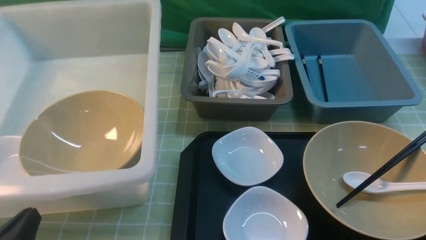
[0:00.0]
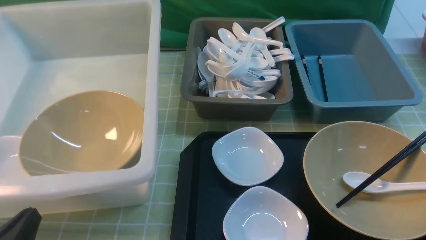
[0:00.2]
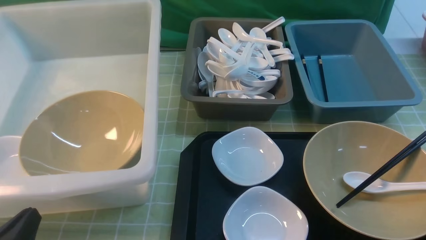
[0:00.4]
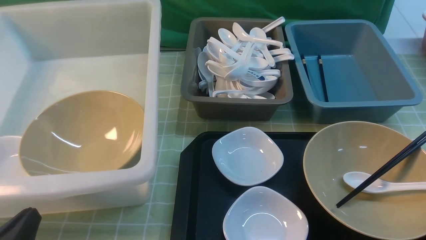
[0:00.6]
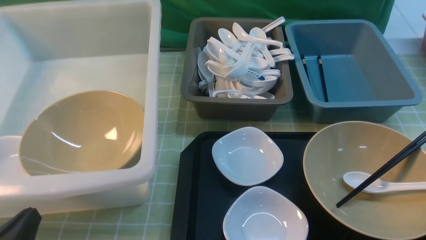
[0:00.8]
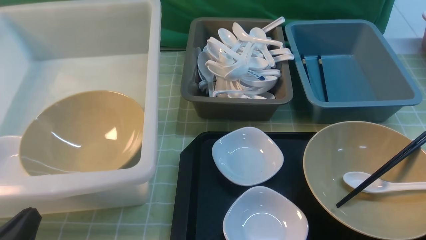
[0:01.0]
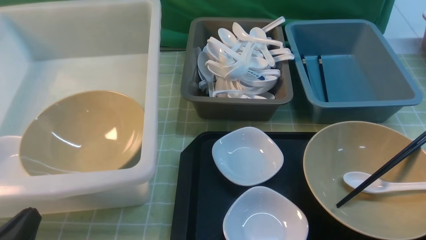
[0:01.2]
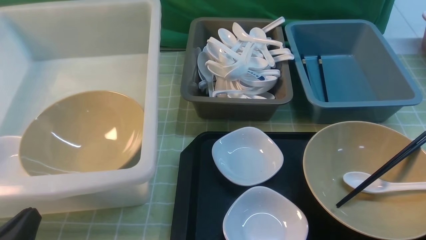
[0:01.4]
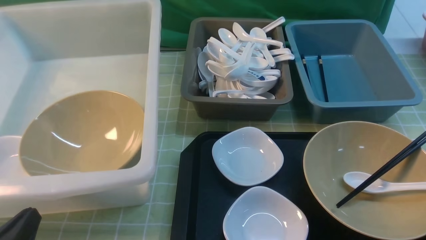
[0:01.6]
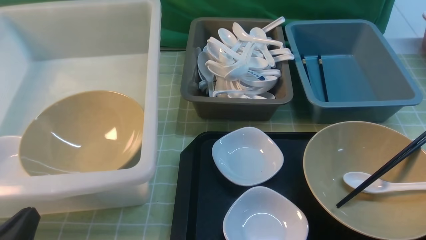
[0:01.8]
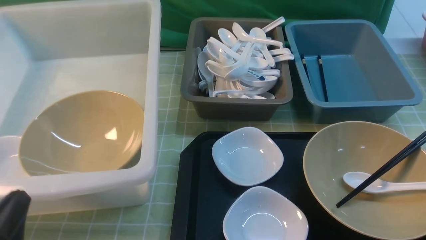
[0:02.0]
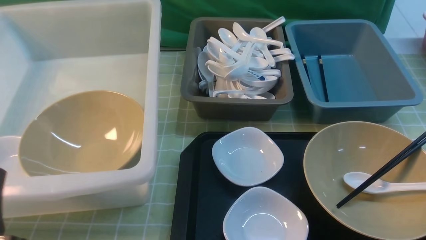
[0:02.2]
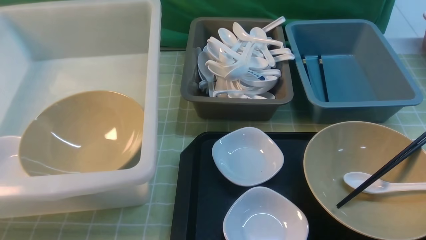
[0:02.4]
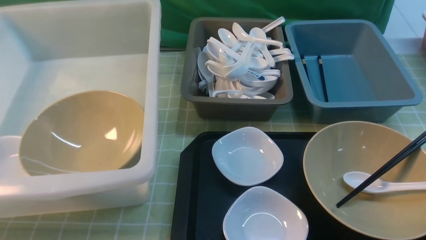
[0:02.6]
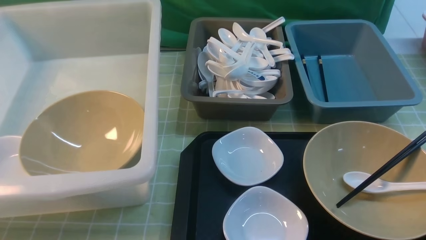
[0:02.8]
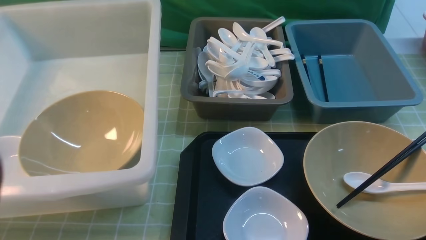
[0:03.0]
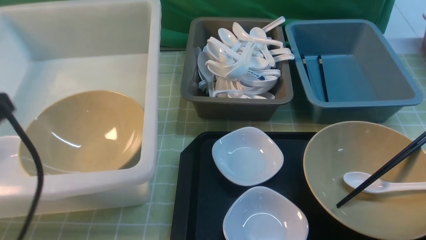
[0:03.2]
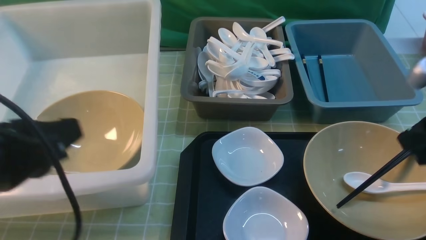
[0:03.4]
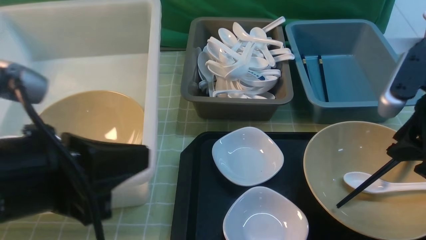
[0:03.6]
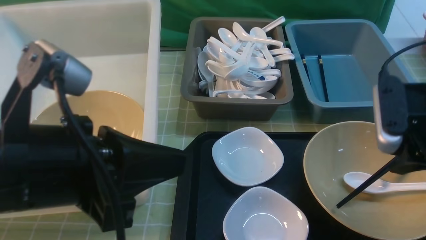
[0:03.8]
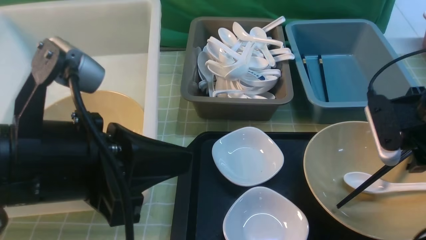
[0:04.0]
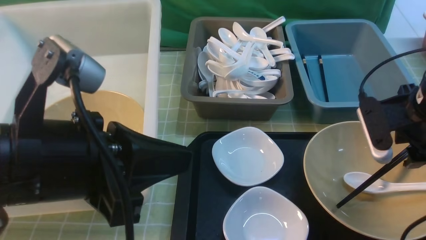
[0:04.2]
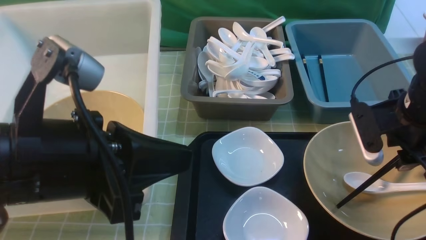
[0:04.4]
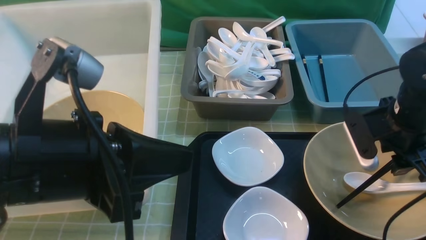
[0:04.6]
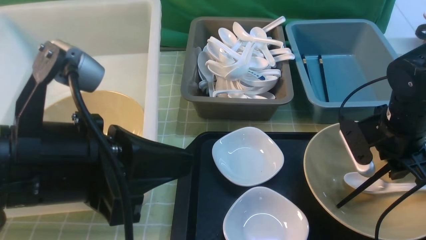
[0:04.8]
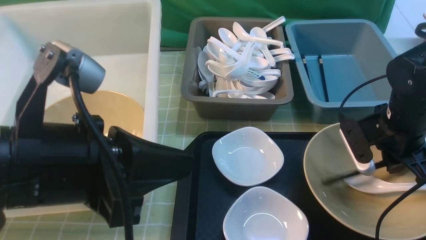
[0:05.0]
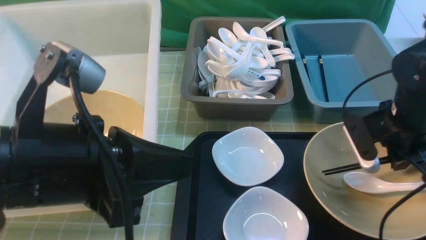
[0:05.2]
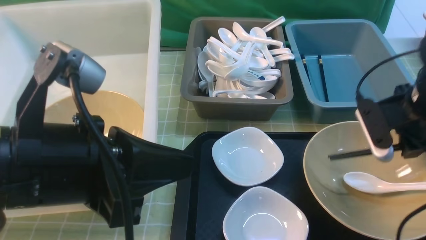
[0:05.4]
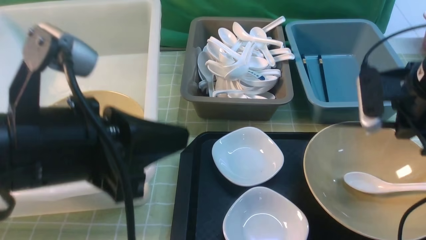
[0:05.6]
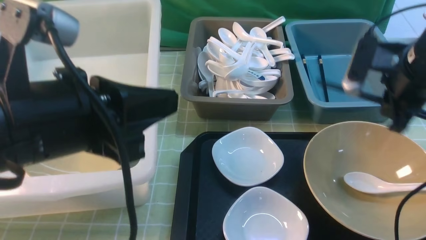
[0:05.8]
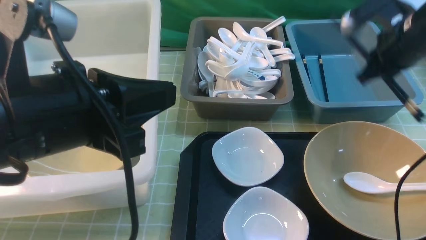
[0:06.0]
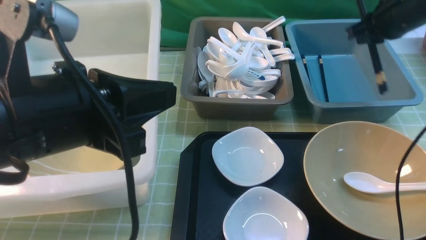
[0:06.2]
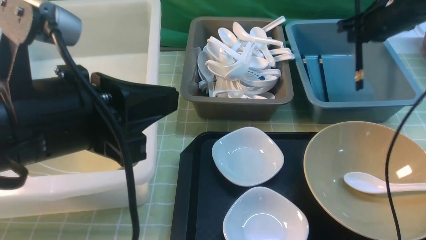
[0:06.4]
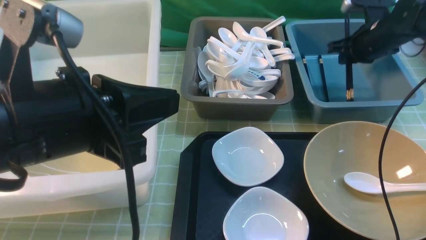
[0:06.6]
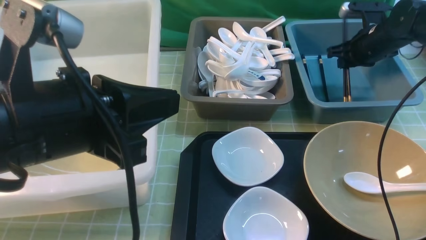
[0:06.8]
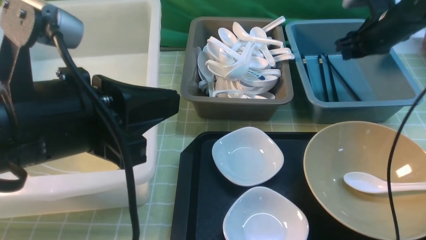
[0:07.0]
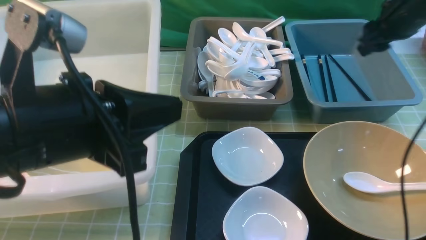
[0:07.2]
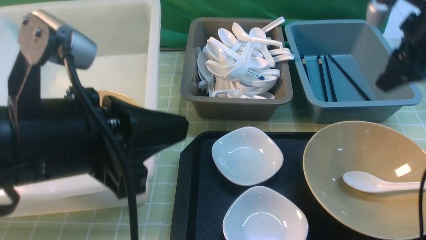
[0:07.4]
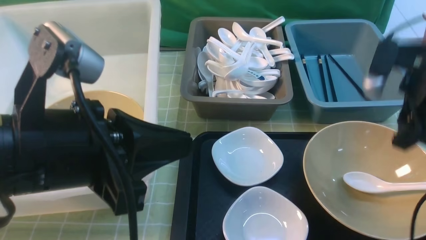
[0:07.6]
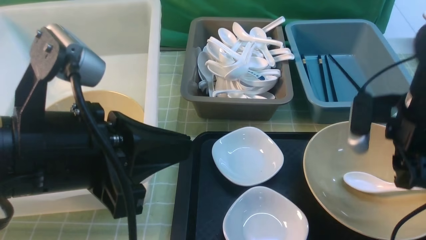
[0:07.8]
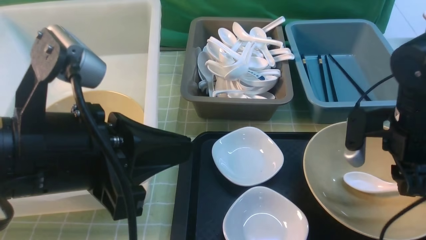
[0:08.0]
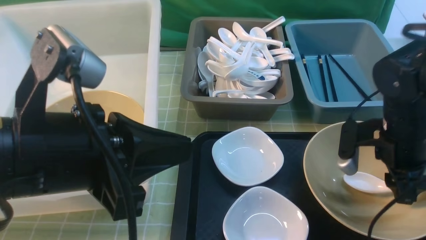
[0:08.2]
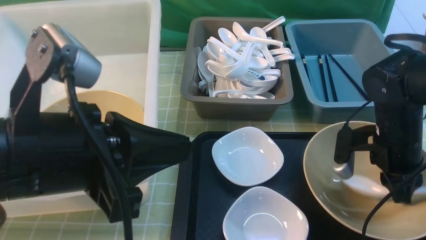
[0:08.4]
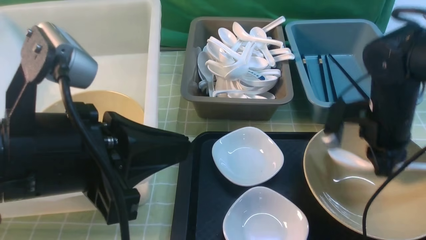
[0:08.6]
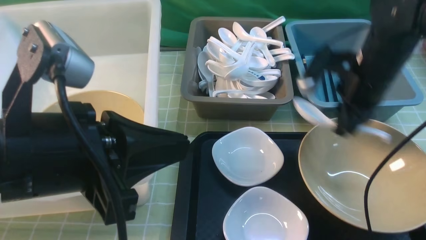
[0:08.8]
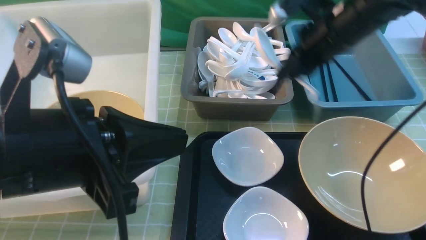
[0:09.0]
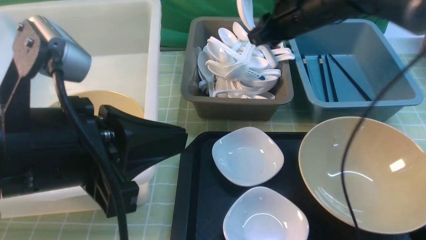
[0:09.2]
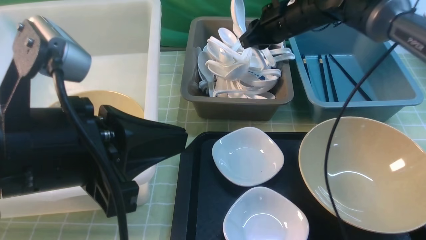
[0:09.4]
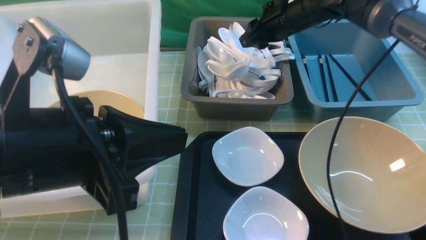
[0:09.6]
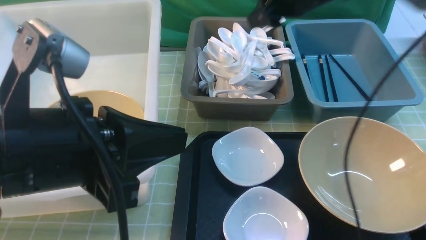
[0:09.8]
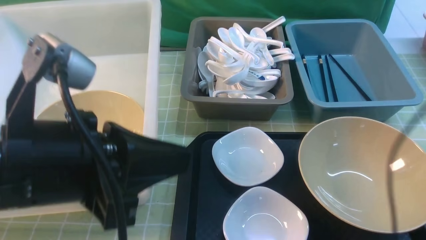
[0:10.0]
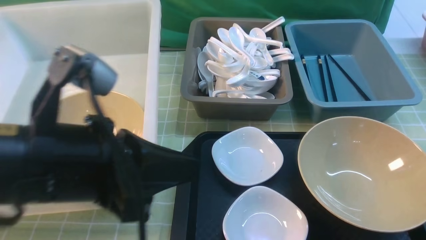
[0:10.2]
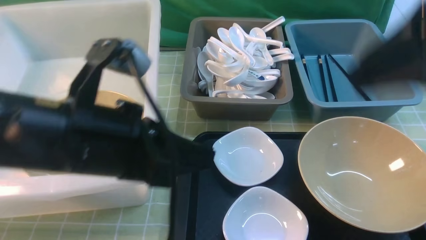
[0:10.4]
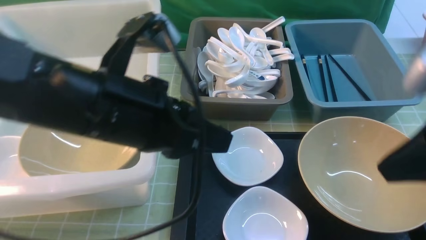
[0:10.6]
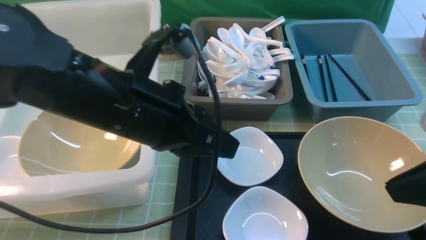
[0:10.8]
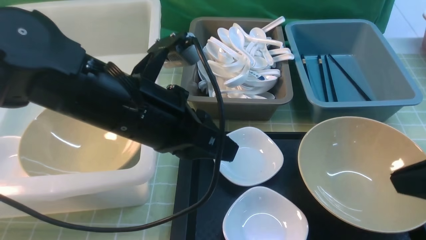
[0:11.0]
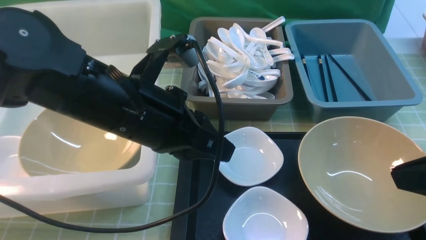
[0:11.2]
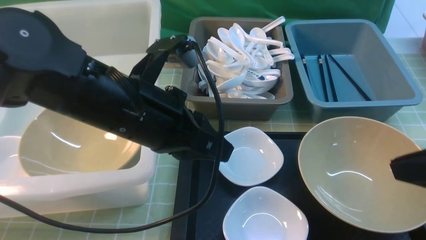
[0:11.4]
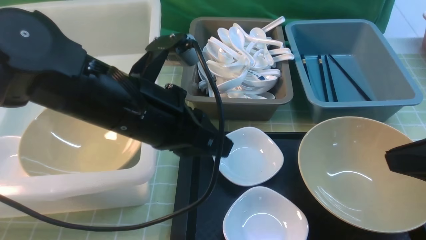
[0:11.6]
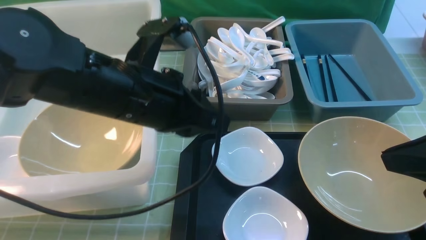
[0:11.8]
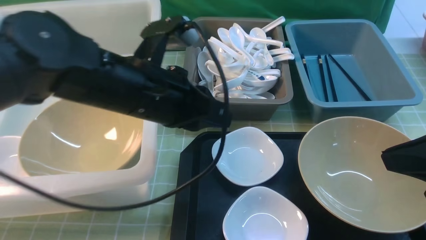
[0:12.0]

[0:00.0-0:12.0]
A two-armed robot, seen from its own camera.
Task of the whole recording: on green table put chopsticks spoon bowls plates into blue grey white boxes.
Step, 0.0 to 5.6 s: use the right arm to grab the chopsticks.
Step, 5.8 to 6.8 s: use the right arm to put the chopsticks into the small storage box on the right.
Step, 7.2 to 8.8 s: use the right arm to grab the soup spoon in the middle.
Step, 9.0 to 10.2 s: use the right arm to put the soup spoon into the small storage box in the middle.
1.6 to 3.0 s: The left gripper moves upward, roughly 20 cm.
3.0 to 4.4 s: The right gripper heads forward, downward and to the left, covering some 20 cm, and opens its fingers. The left gripper heads to the right, covering about 10 cm.
4.4 to 6.0 s: The right gripper travels forward and upward by about 10 cm, and closes its fingers.
6.0 to 7.6 s: The right gripper shifts about 10 cm backward, and opens its fingers.
7.6 to 9.0 s: The right gripper goes approximately 15 cm forward and to the left, and closes.
9.0 to 10.4 s: The right gripper shifts roughly 25 cm backward and upward, and opens, then closes once more.
10.4 to 12.0 s: The left gripper goes about 10 cm forward, while the right gripper goes roughly 10 cm downward and backward, and closes up.

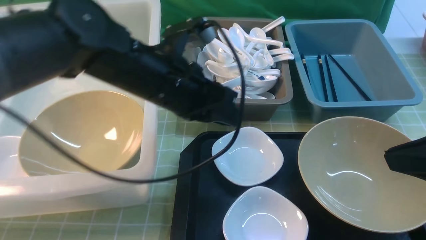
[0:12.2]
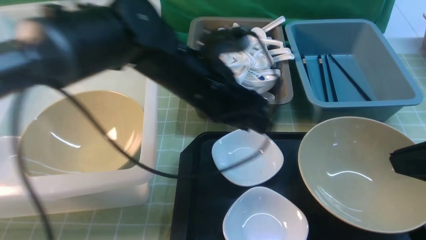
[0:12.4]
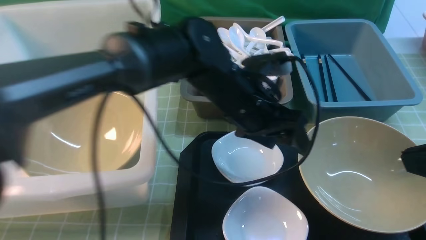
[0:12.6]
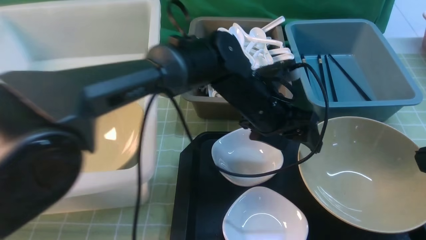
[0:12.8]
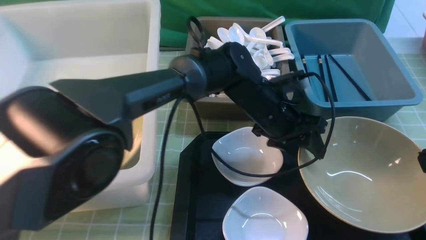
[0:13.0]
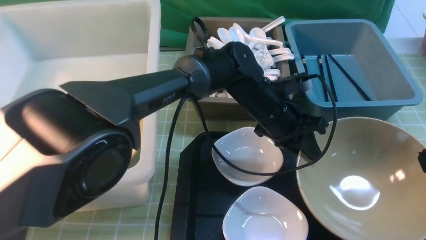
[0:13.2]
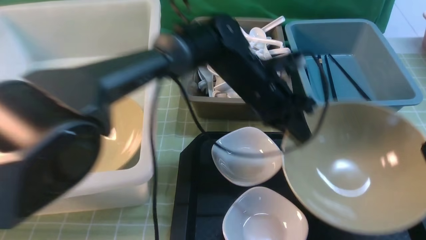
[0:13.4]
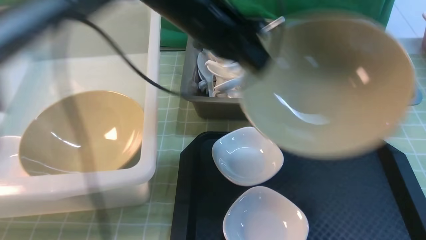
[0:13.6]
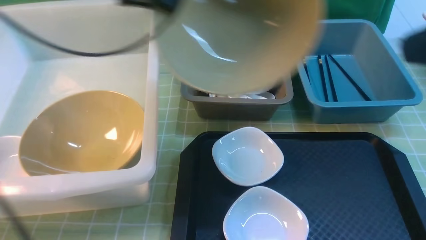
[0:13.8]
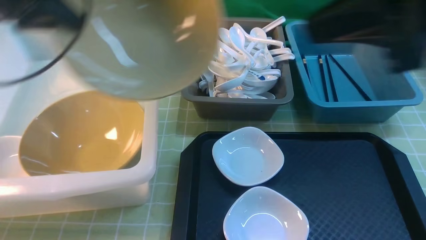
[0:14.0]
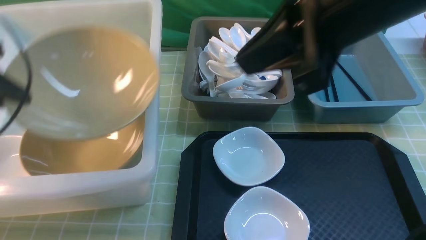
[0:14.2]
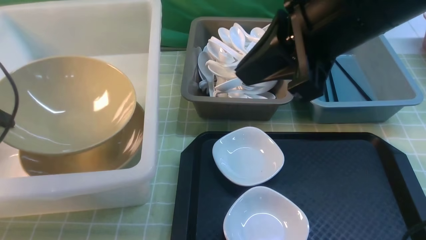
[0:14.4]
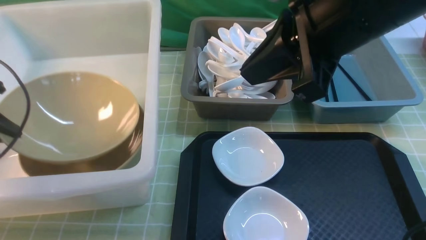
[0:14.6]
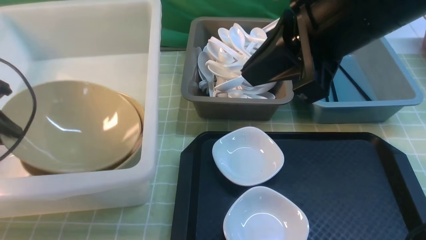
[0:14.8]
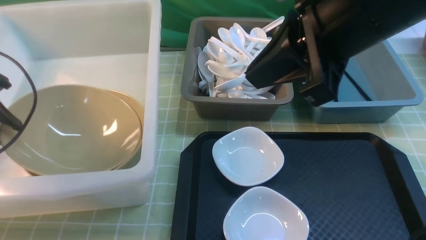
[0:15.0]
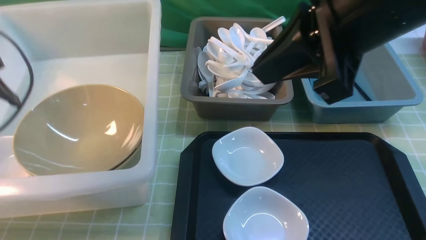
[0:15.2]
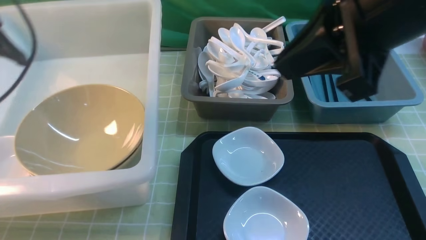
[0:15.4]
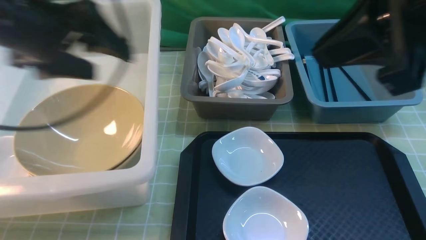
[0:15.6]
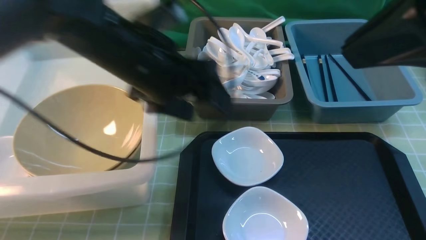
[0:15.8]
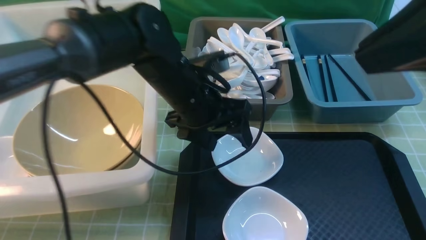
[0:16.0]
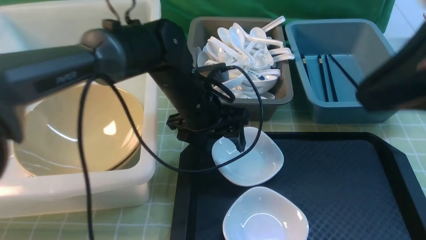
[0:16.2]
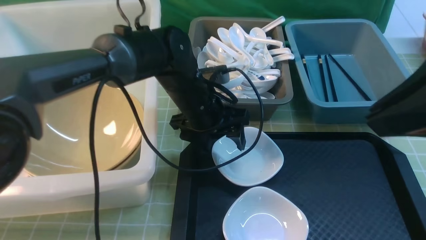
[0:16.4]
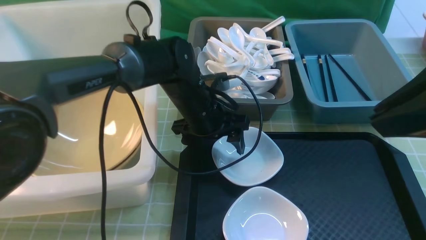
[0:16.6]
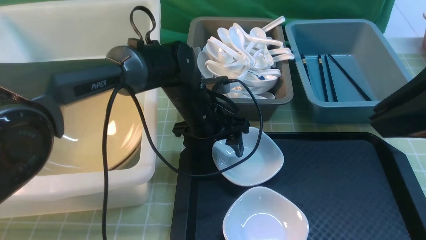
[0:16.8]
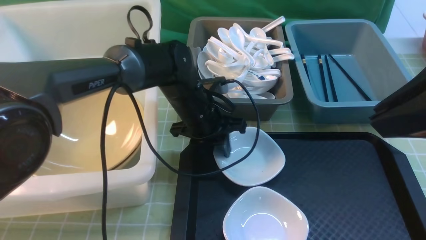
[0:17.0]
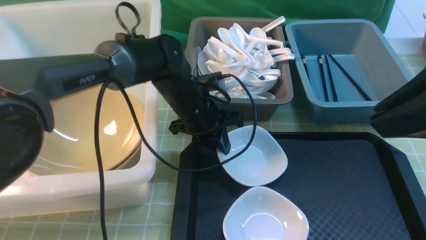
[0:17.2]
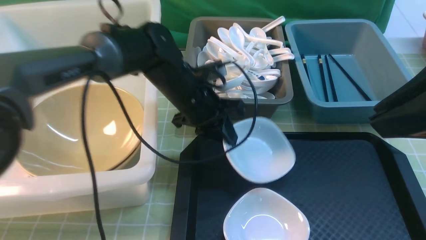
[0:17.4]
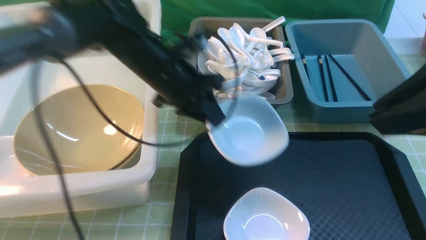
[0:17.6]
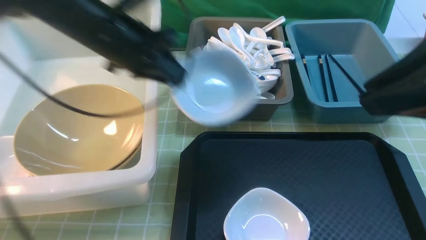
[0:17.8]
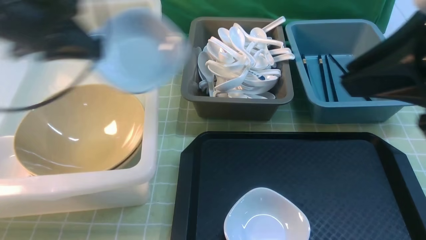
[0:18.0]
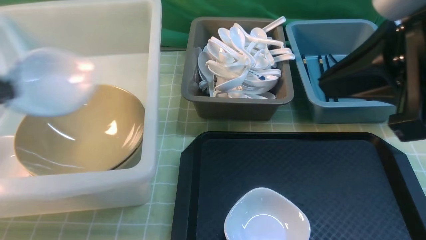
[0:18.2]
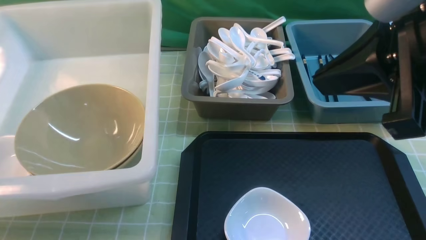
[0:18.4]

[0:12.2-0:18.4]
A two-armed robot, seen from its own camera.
Task of the whole recording: on green table put chopsticks spoon bowls plates into blue grey white boxes.
Step, 13.6 to 15.4 s: use the left arm to put the noodle bowl into the large storage box on the left.
Step, 15.6 to 17.4 s: use the left arm to grab the plate.
12.2 to 13.8 s: The right gripper moves upward, approximately 10 cm. Meanwhile the left gripper shifts about 20 cm to the left, upward and forward, and opens and closes again.
13.8 to 15.4 s: The right gripper is displaced to the left by roughly 5 cm. Meanwhile the left gripper shifts roughly 10 cm to the left and backward, and opens its fingers.
15.4 to 16.8 s: The right gripper heads backward and to the right, covering about 10 cm; the left gripper is displaced to the right and downward by approximately 30 cm.
16.8 to 18.4 s: The left gripper is displaced to the left by about 40 cm, and closes its fingers.
